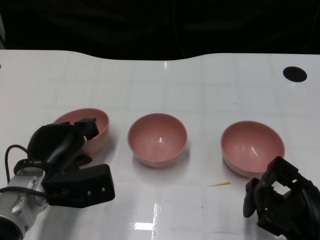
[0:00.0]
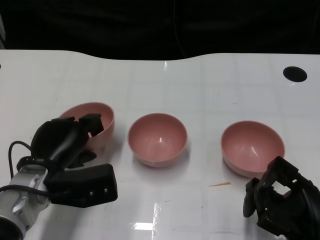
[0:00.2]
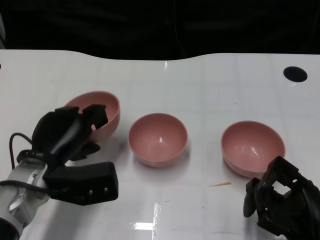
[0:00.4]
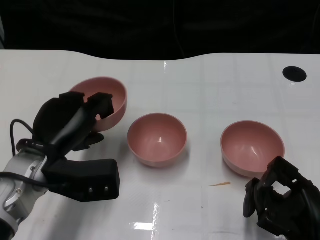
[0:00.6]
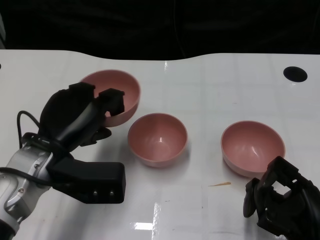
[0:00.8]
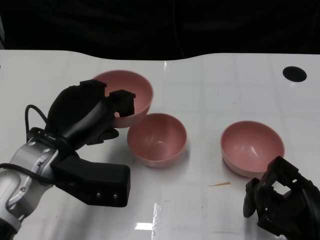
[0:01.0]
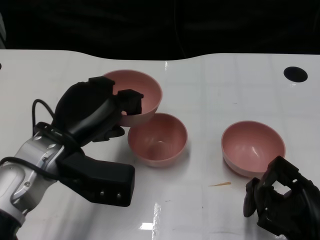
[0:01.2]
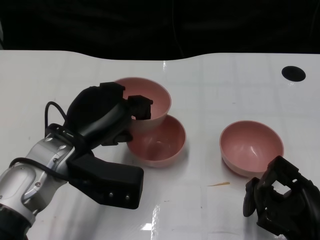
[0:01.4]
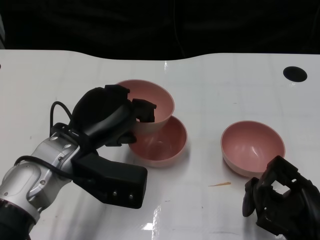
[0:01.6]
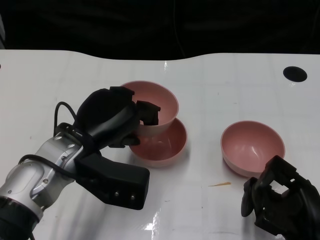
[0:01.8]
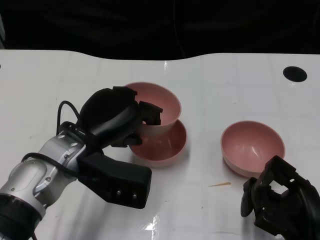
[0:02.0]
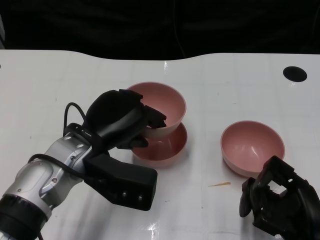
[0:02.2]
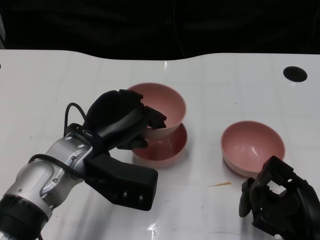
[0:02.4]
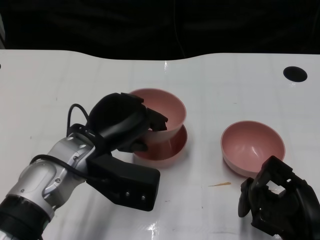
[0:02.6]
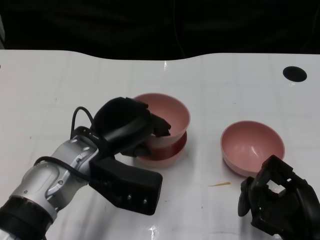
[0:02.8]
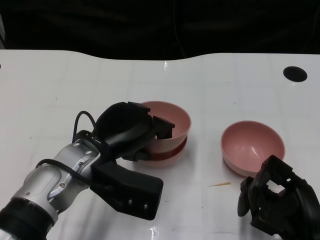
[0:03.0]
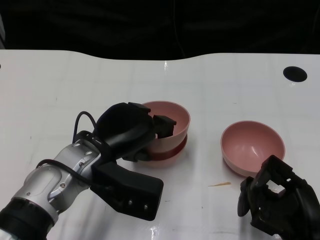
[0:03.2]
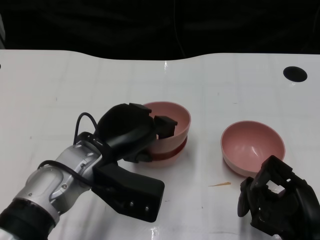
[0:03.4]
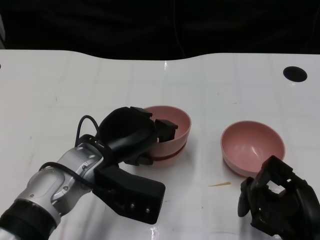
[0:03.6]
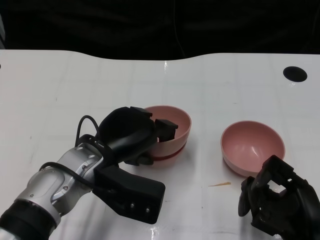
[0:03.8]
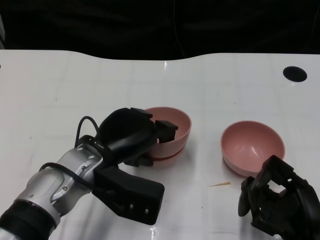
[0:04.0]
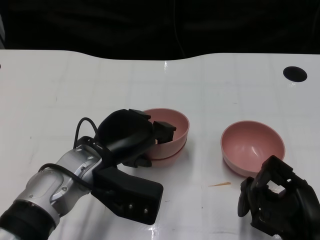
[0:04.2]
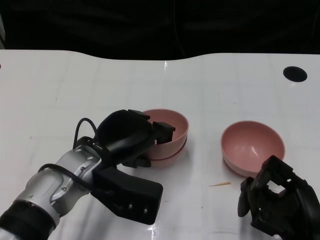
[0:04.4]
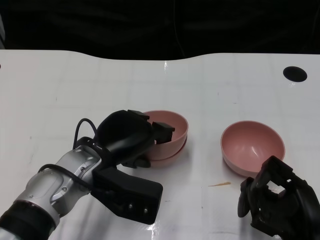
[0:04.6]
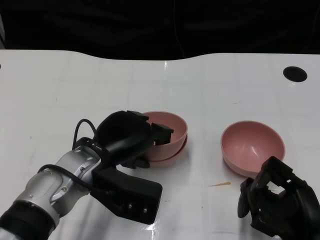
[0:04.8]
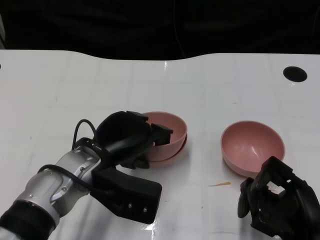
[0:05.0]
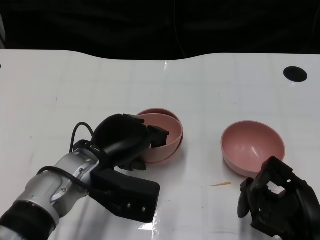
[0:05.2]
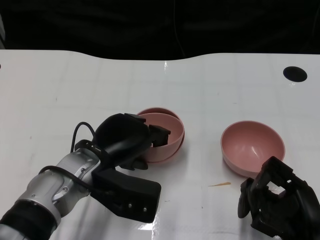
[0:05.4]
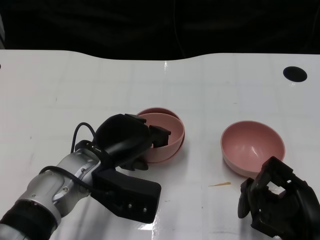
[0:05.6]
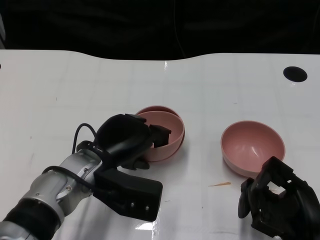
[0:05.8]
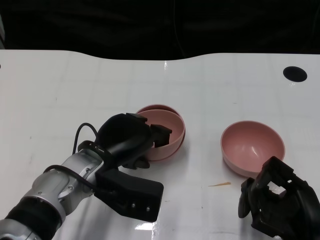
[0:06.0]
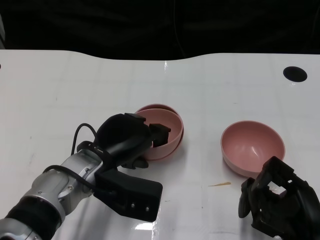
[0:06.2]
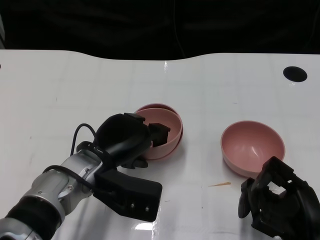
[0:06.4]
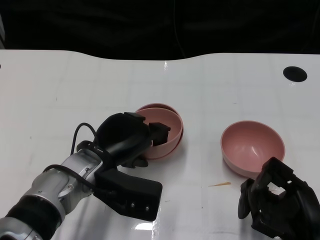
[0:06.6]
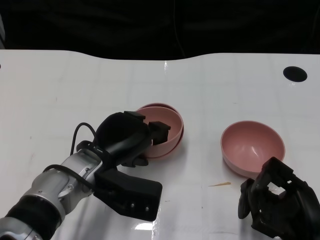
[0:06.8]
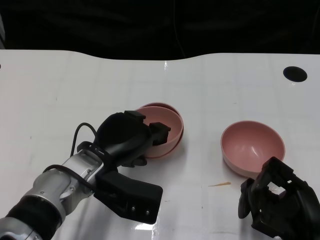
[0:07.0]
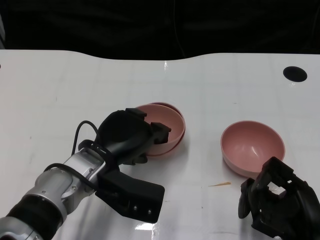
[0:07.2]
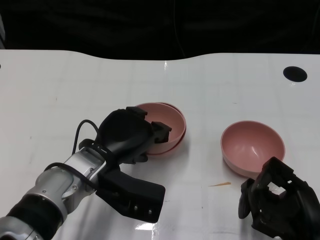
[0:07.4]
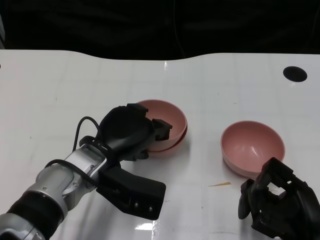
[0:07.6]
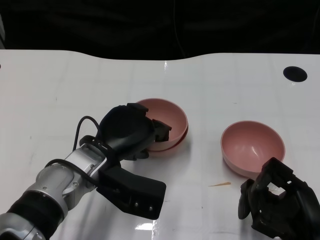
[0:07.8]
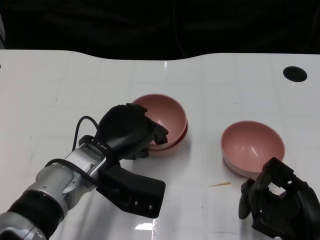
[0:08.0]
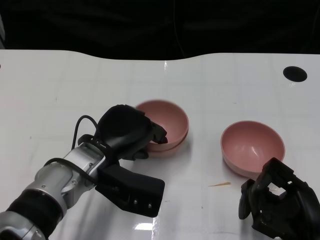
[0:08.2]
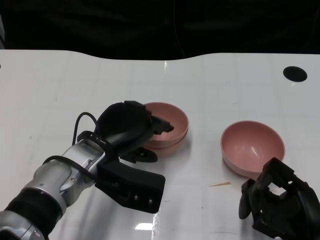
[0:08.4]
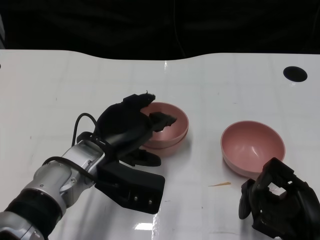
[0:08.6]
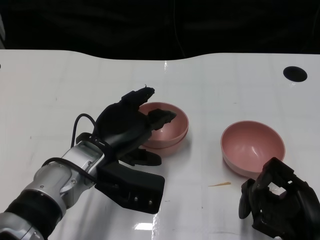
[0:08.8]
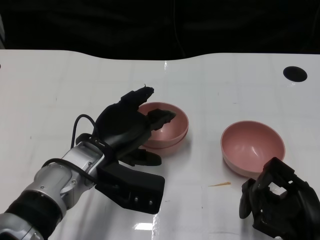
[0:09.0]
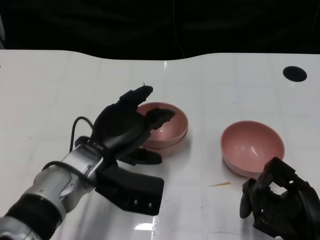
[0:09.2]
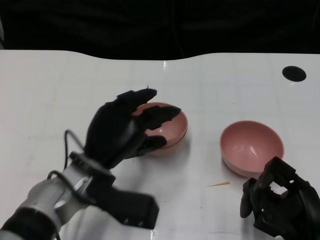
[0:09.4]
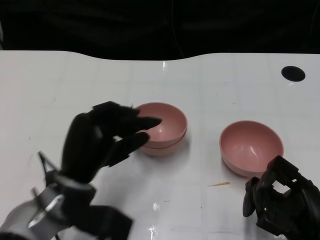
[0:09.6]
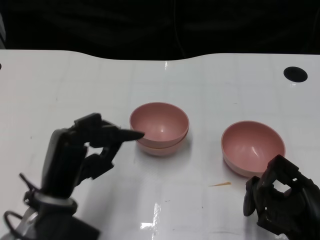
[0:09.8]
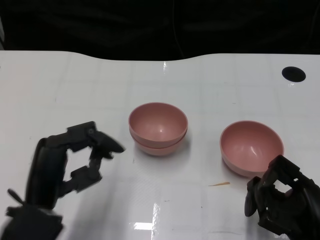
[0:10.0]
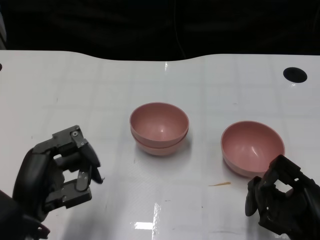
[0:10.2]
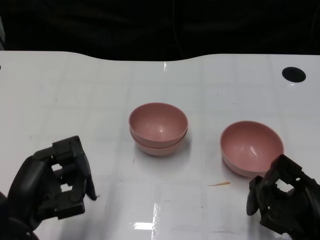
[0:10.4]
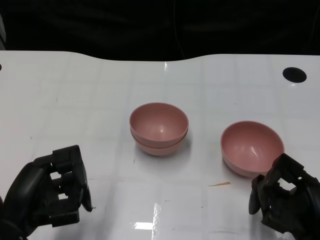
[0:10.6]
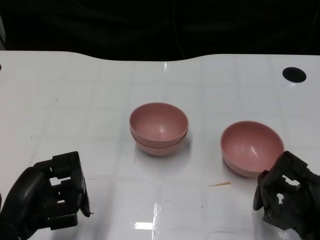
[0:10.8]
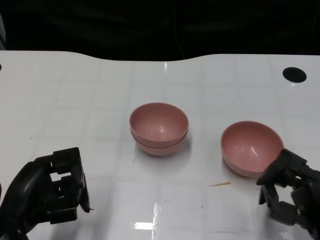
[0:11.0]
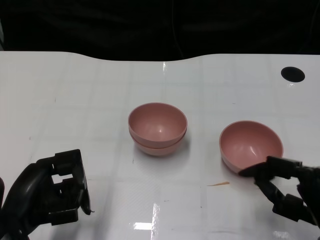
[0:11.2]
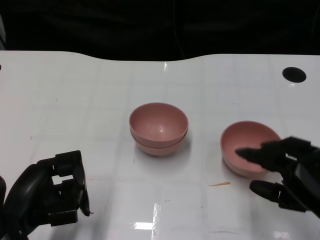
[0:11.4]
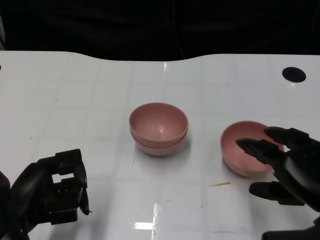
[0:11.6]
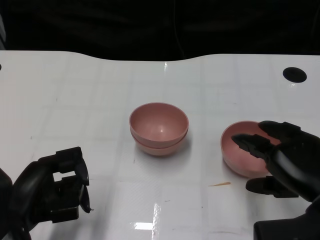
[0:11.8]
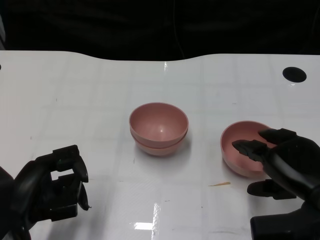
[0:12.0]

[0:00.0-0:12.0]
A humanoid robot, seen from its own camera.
Task of the whole recording: Pick up the bowl on one side of the table and place it on top of the middle bowl, then pick up the bowl on the other side of the table and place it on top of the middle bowls.
Step, 0:00.4 to 0:08.8: Place the bowl on the left onto the bowl in the middle with left gripper.
0:00.0 to 0:01.6: The left hand shifts roughly 10 cm upward.
0:03.0 to 0:04.4: Both hands stay about where they are.
0:04.4 to 0:07.6: The hands move only a little.
0:07.6 to 0:09.0: Neither hand changes place.
0:09.0 to 0:10.4: The left hand moves backward and to the left, approximately 15 cm.
0:10.4 to 0:12.0: The right hand travels upward and forward by approximately 10 cm.

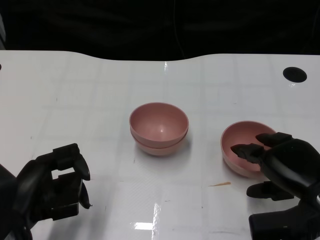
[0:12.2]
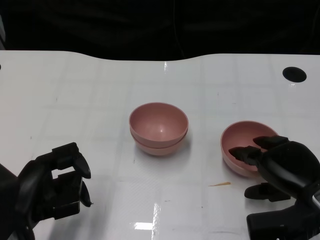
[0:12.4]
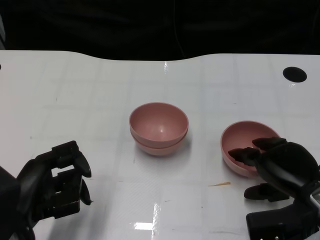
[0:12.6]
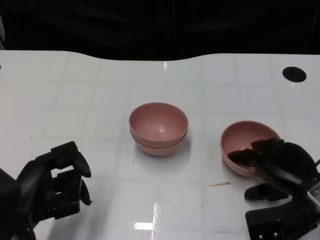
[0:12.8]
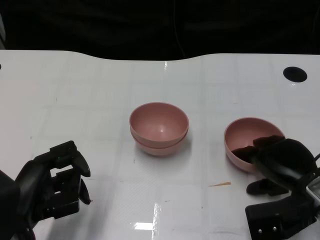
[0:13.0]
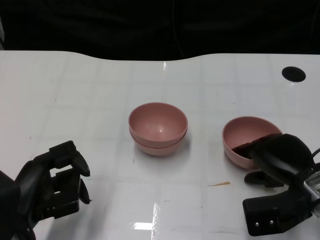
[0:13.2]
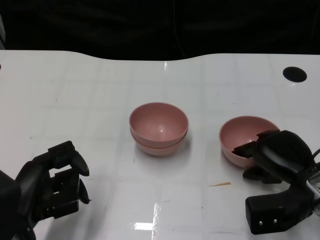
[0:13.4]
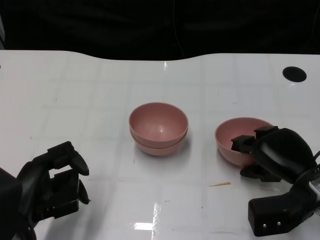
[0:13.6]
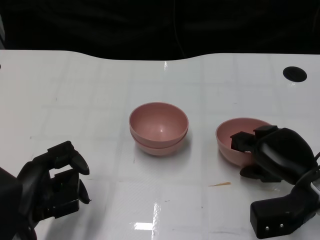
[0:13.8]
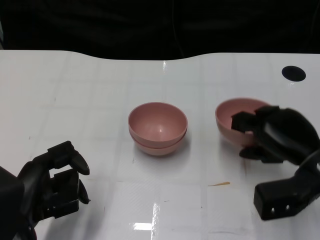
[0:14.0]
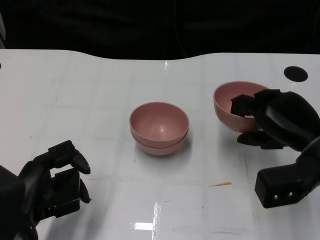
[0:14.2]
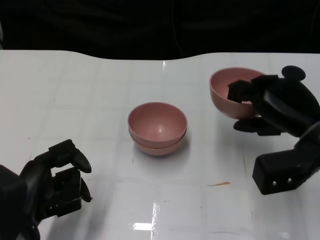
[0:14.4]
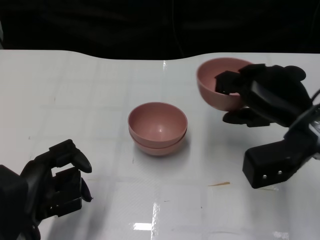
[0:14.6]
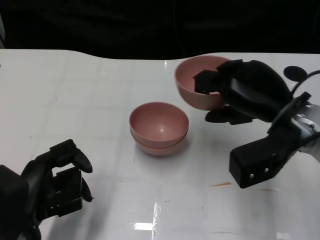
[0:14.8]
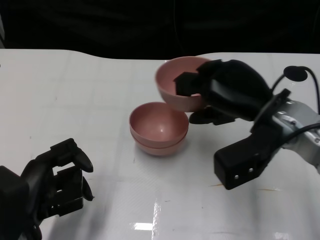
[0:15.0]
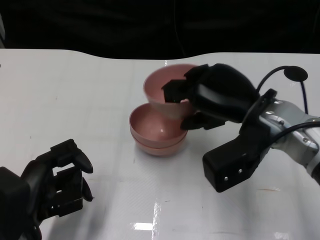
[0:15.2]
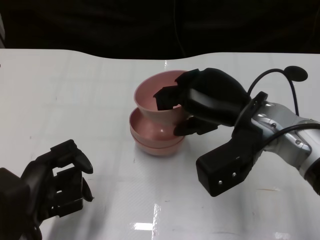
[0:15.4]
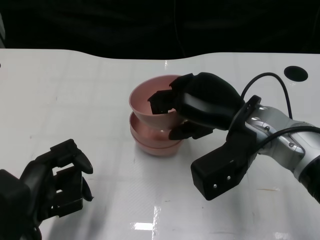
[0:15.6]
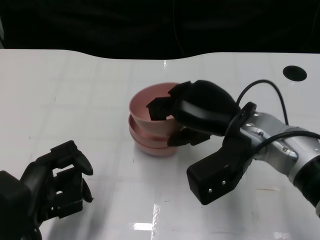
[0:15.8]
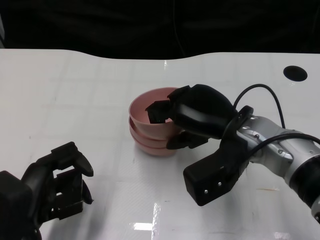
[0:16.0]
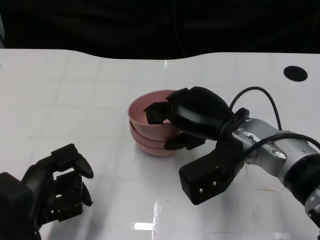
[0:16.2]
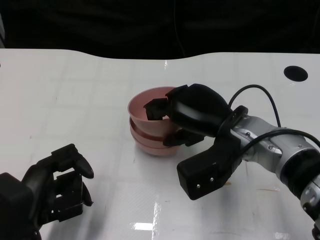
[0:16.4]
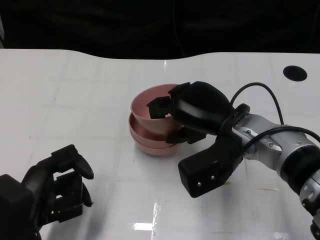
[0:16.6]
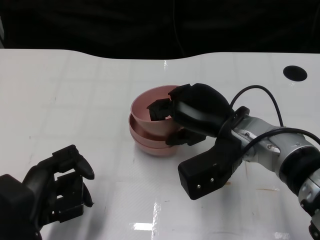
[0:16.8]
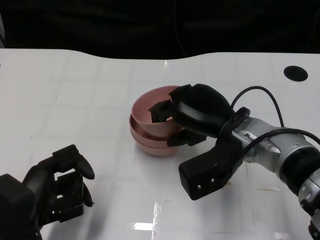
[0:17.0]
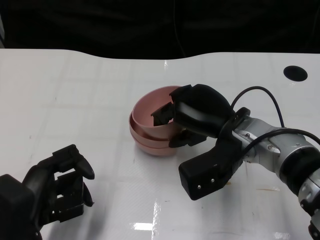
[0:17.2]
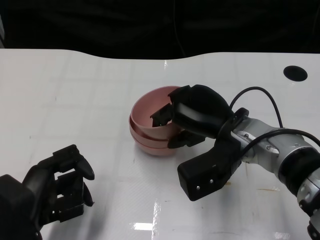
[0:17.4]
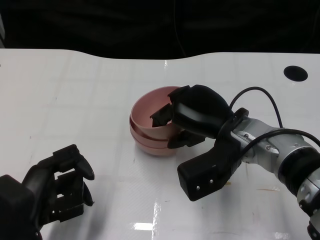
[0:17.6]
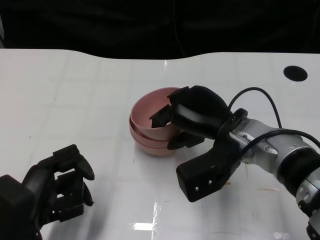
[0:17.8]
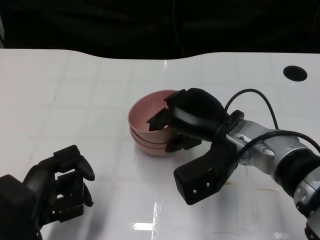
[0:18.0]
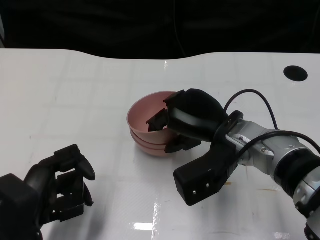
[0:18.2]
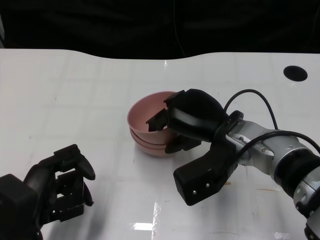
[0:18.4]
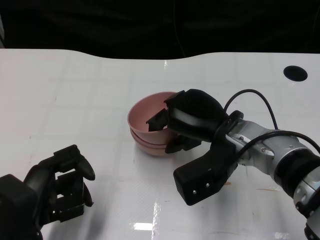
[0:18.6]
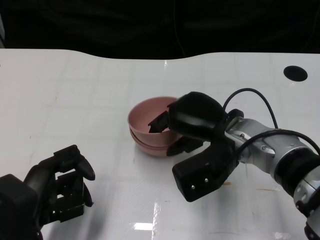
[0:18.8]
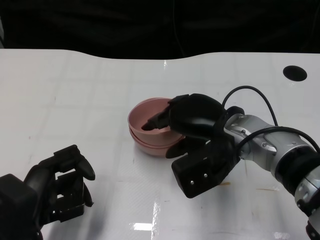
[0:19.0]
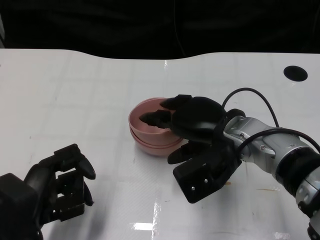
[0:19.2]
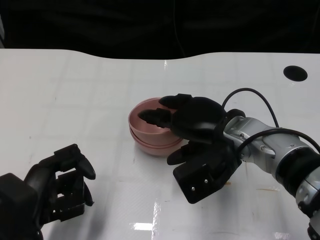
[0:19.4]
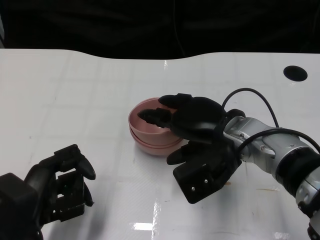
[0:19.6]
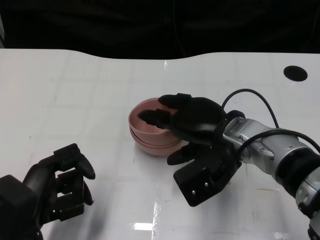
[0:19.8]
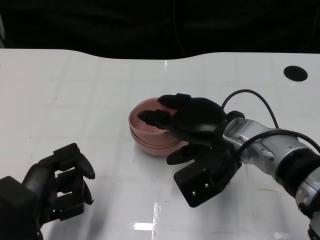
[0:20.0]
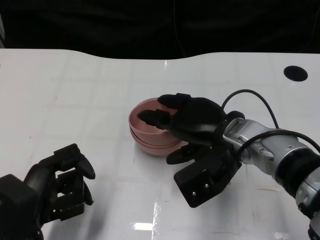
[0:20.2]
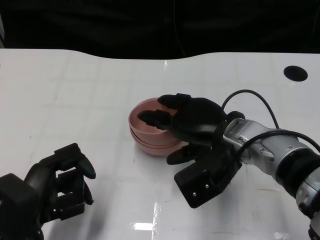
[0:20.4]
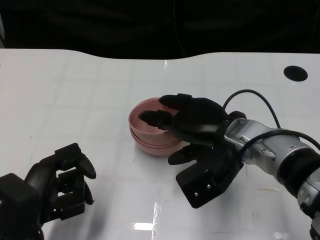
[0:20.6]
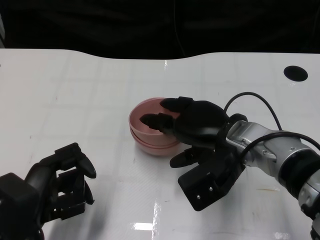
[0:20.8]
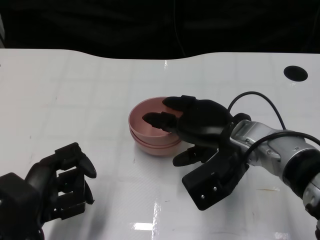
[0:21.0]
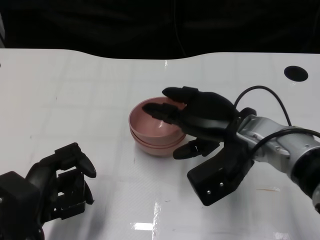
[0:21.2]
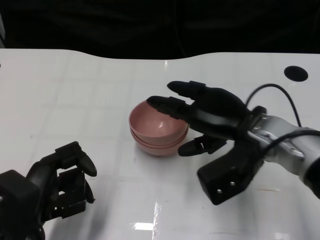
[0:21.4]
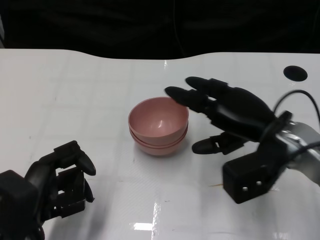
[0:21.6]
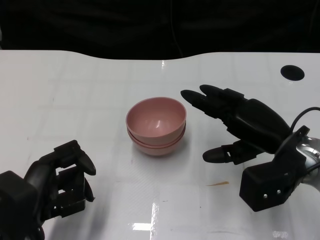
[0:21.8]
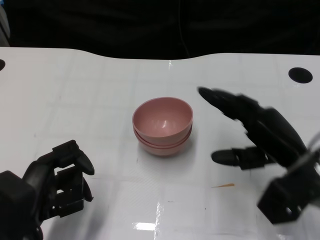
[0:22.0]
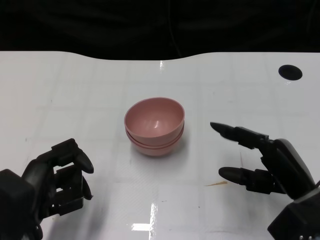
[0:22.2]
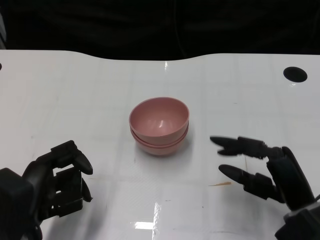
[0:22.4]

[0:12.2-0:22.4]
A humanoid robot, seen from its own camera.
Task of the whole recording: Pick up the bowl on one side of the table and place it on top of the middle bowl, then pick up the bowl on the other side of the table and place it on top of the middle bowls.
Step, 0:14.0 to 0:21.0: Place the bowl on the right onto the bowl in the middle with right gripper.
0:12.2 to 0:13.6: The hands stay close to where they were, moving slightly.
0:13.6 to 0:15.2: The right hand shifts roughly 15 cm upward and to the left.
0:16.6 to 0:18.0: Neither hand changes place.
0:18.0 to 0:19.4: There are only small adjustments of the hands.
0:19.4 to 0:21.0: The two hands keep their place.
0:21.0 to 0:22.4: The right hand goes some 15 cm backward, to the right and downward.
